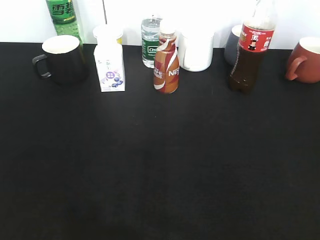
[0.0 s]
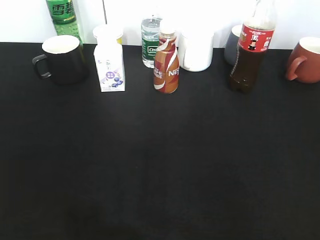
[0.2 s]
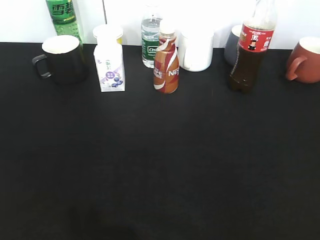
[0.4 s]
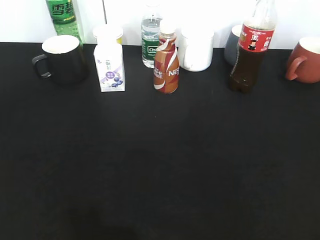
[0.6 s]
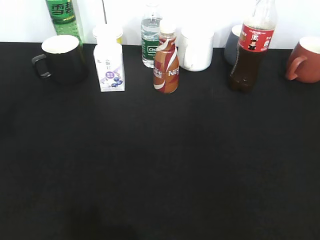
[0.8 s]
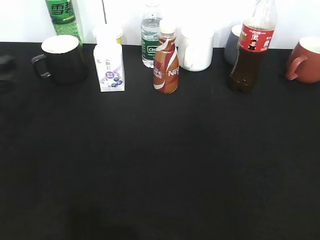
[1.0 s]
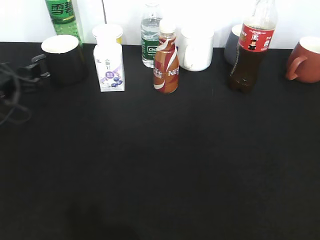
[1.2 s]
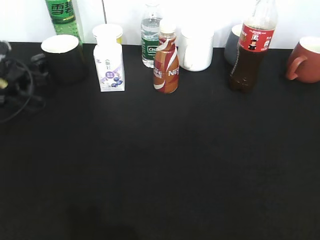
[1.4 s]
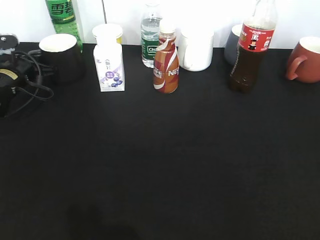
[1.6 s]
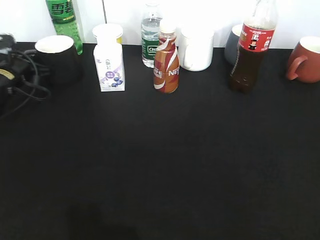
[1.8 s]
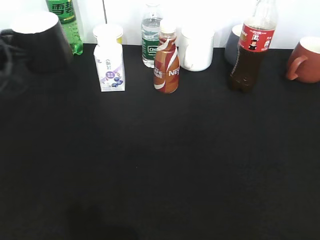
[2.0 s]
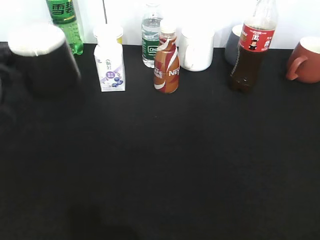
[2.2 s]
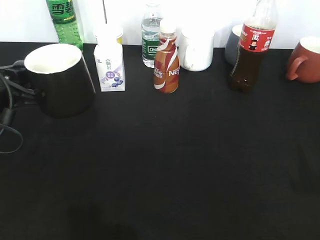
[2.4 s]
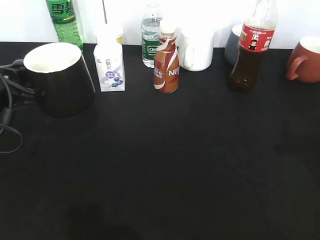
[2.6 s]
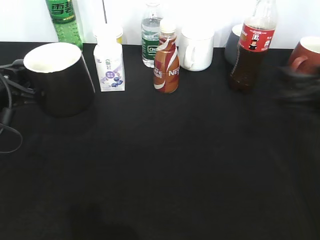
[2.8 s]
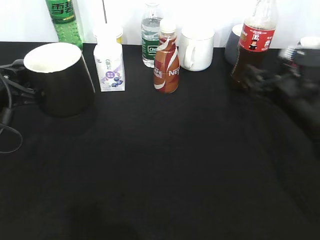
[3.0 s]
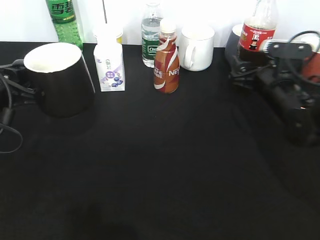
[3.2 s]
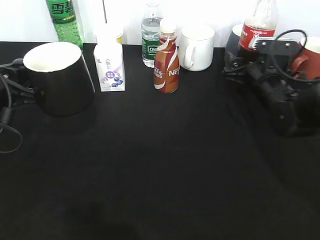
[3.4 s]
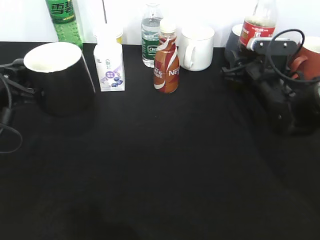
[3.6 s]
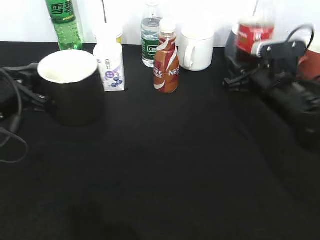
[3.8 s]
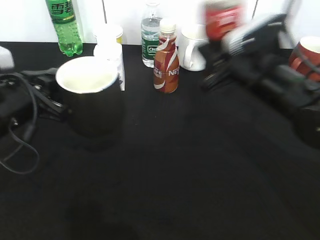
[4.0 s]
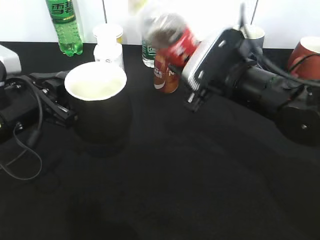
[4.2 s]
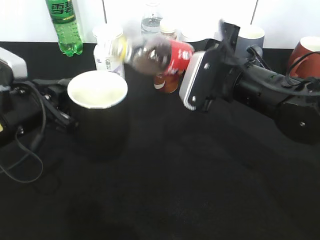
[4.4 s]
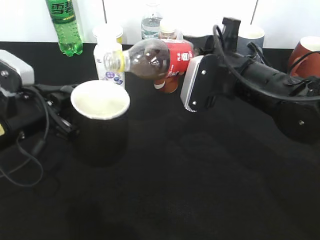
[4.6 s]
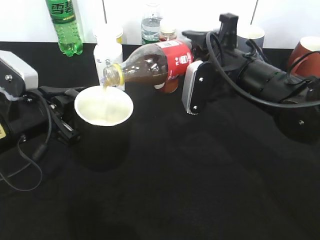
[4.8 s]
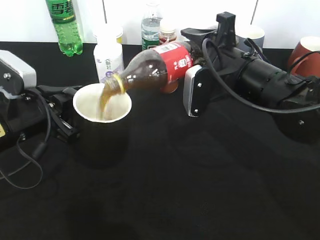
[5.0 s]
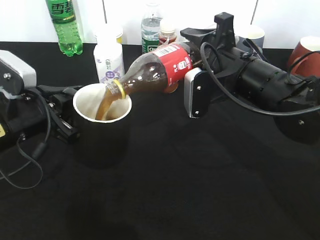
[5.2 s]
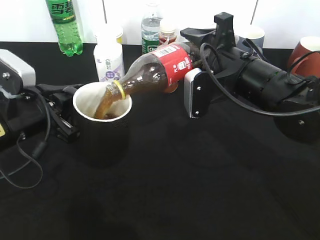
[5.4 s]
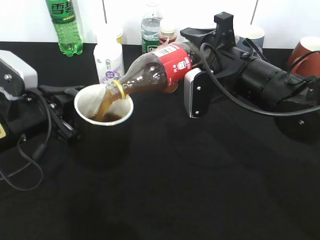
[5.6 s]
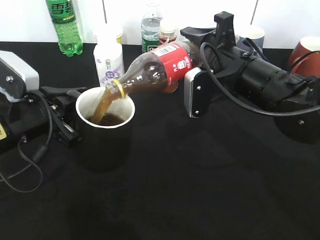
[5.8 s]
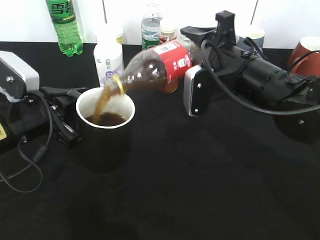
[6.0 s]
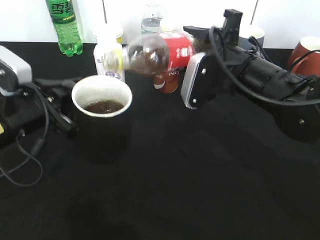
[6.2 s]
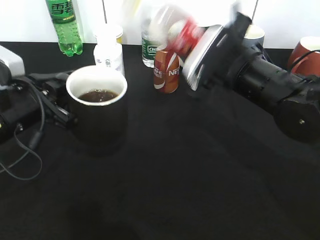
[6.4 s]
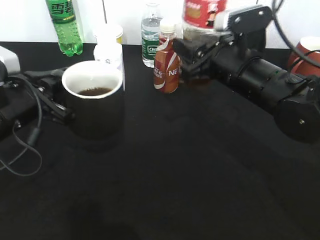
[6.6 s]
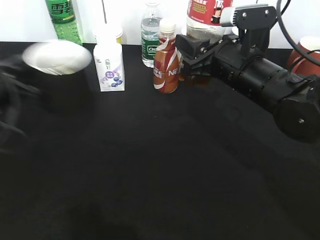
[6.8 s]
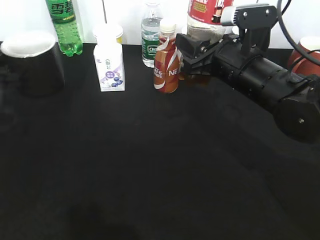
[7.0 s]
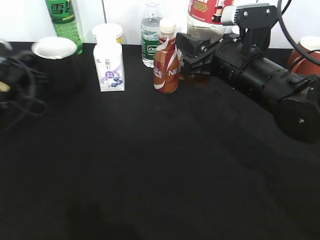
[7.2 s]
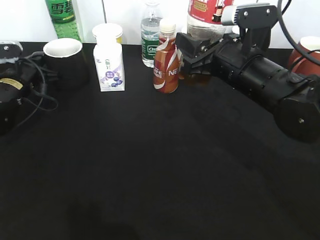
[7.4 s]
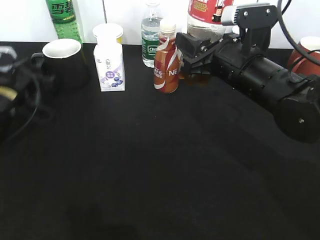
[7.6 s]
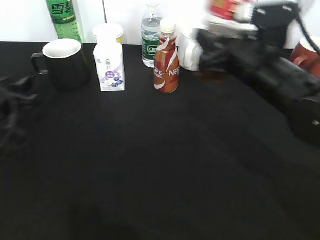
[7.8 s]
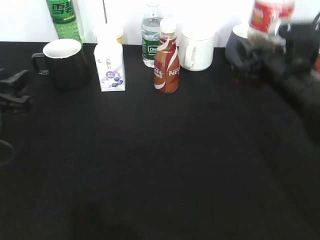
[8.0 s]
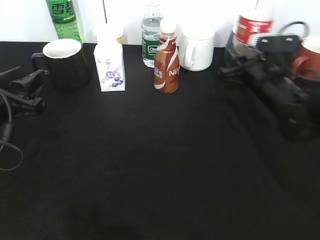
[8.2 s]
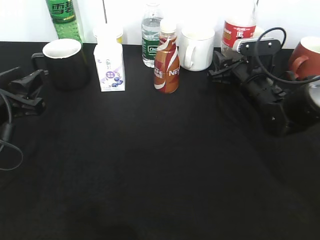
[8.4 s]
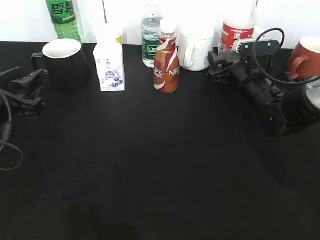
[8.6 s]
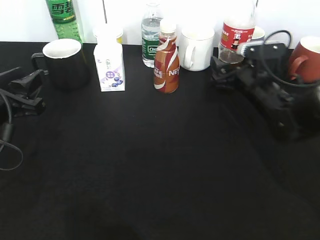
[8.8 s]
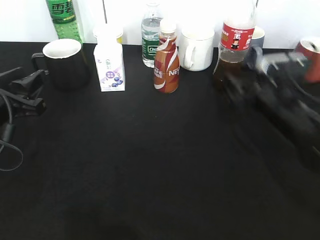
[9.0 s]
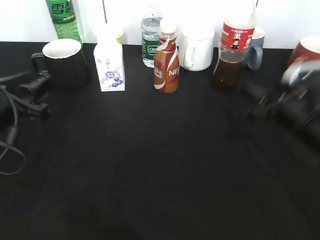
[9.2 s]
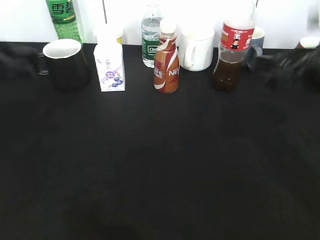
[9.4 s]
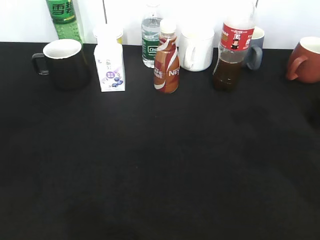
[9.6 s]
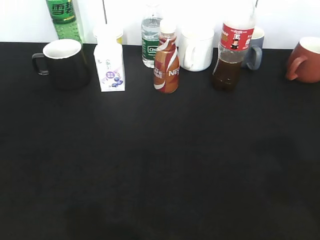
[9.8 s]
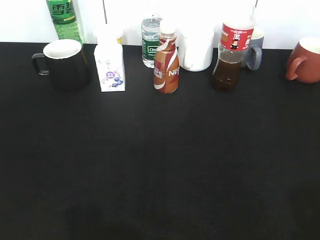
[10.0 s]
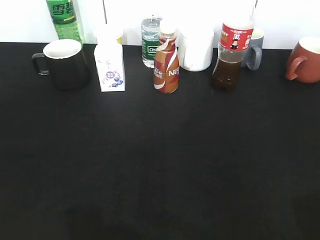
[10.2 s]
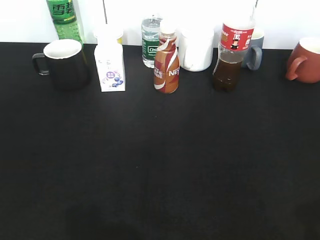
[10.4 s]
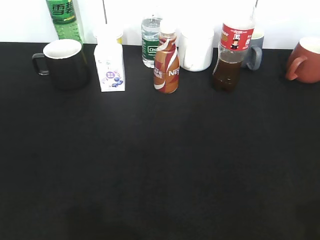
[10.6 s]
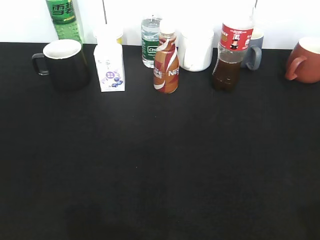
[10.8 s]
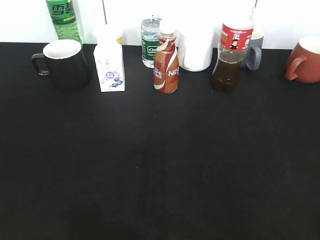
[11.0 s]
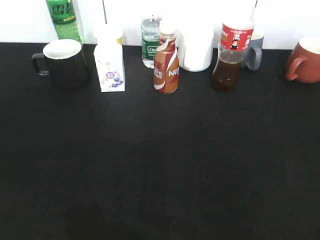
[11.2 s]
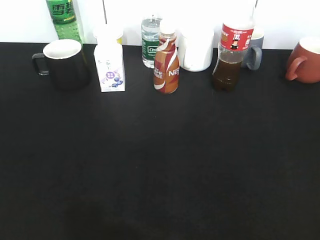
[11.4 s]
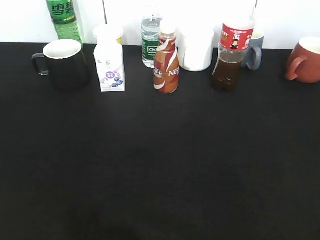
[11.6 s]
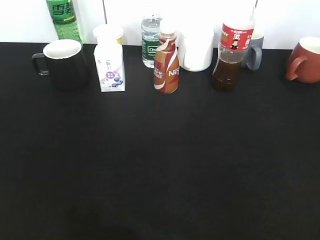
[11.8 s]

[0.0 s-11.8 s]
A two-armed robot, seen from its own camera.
Step, 0.0 to 1.6 s: Grasp the black cup with left gripper.
Step, 1.8 to 2.6 s: Lift the black cup with left gripper.
Step, 2.8 to 3.6 s: Grasp the bottle with cola with right gripper.
Step, 3.8 to 6.2 s: Pour the cola from bottle to cup with right gripper.
Step, 6.4 to 7.8 s: Place the black cup on the table with left gripper.
Step, 8.0 to 9.0 s: Place the cola bottle on the table with right gripper.
0.0 to 1.4 s: The left gripper shifts approximately 40 cm forward and downward.
1.4 to 3.0 s: The left gripper is displaced backward and upward by some 15 cm, and closes up. The right gripper heads forward and downward, covering roughly 35 cm, and opens.
3.0 to 4.4 s: The left gripper changes place by about 5 cm; the right gripper travels to the left by some 10 cm, and closes its fingers.
6.0 to 7.4 s: The left gripper shifts roughly 20 cm forward and to the left.
7.4 to 8.8 s: The right gripper moves downward, to the right and forward, some 15 cm, and opens its fingers. Meanwhile the left gripper shifts roughly 15 cm backward, and opens up.
8.8 to 10.4 s: The right gripper travels backward and upward by roughly 40 cm, while the left gripper heads backward and upward, covering roughly 25 cm.

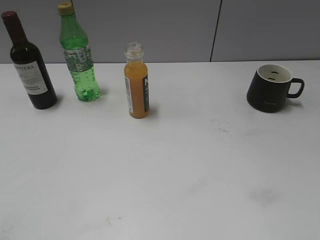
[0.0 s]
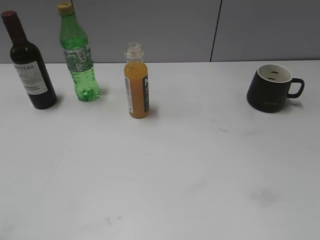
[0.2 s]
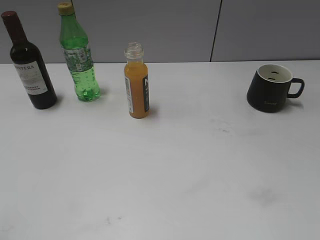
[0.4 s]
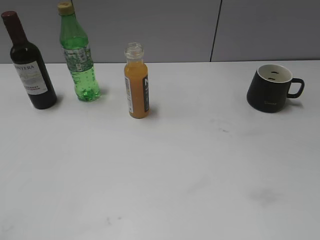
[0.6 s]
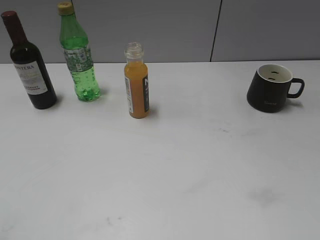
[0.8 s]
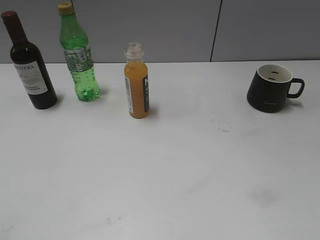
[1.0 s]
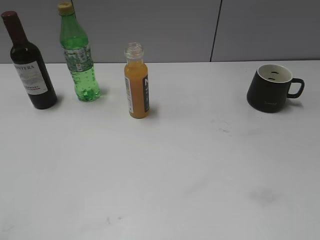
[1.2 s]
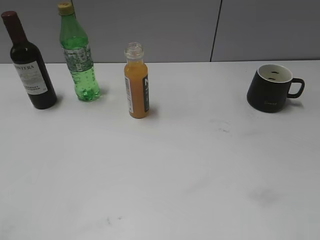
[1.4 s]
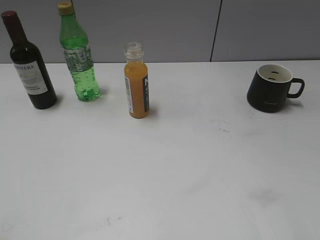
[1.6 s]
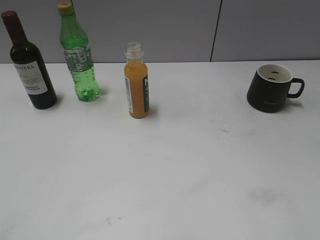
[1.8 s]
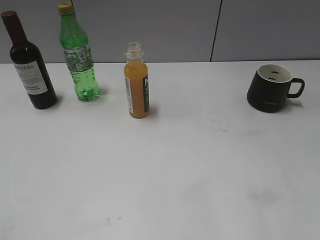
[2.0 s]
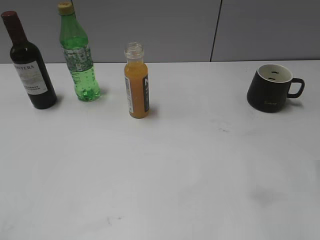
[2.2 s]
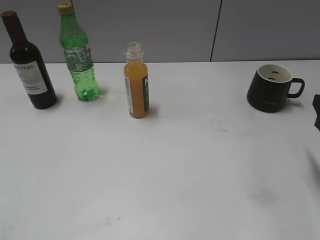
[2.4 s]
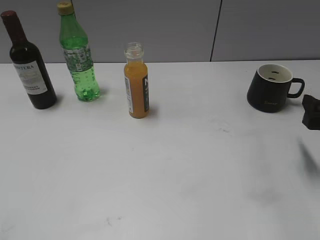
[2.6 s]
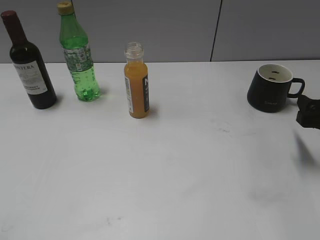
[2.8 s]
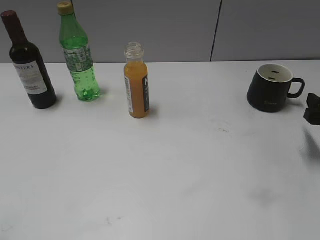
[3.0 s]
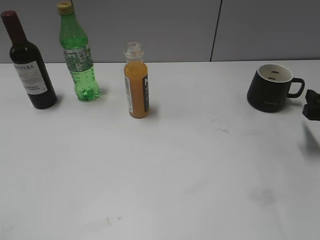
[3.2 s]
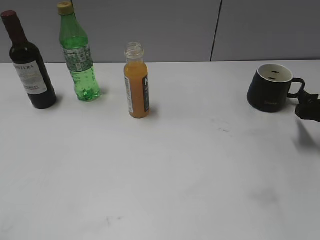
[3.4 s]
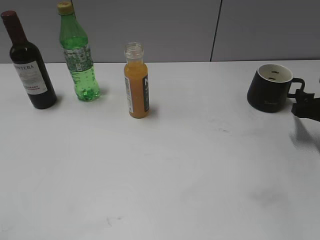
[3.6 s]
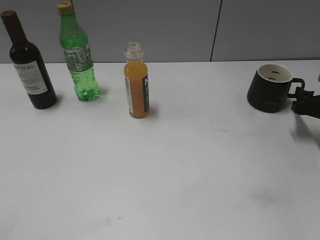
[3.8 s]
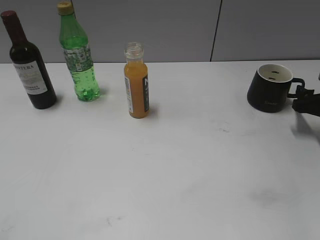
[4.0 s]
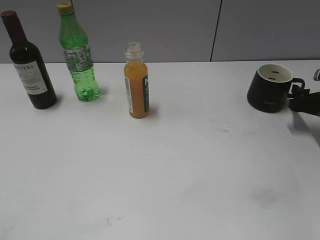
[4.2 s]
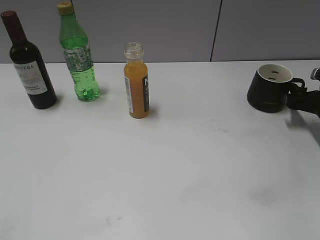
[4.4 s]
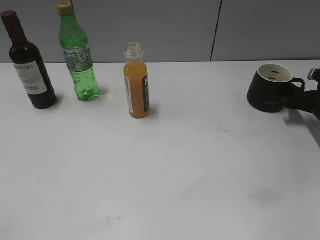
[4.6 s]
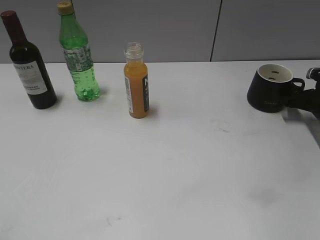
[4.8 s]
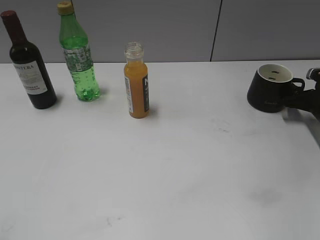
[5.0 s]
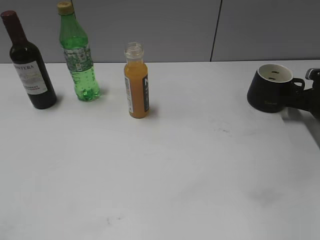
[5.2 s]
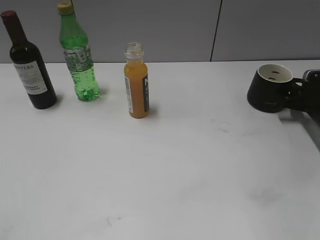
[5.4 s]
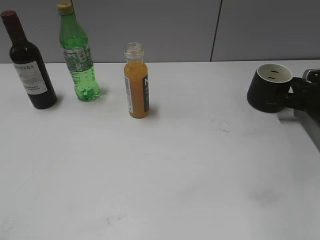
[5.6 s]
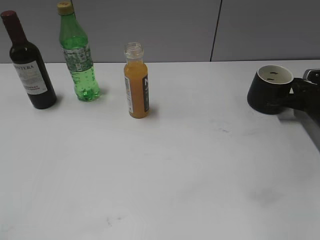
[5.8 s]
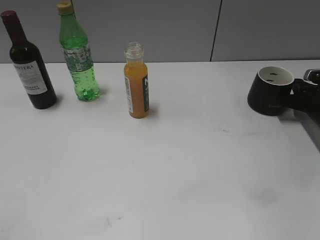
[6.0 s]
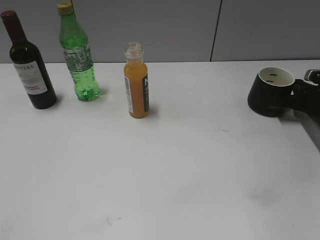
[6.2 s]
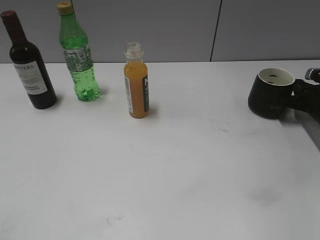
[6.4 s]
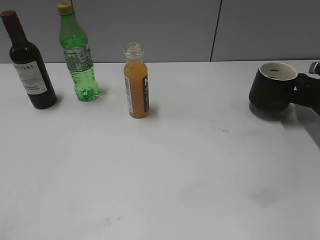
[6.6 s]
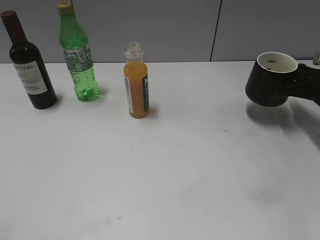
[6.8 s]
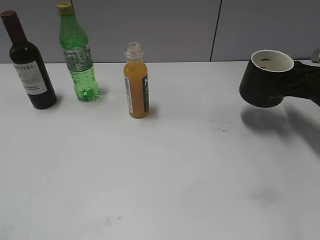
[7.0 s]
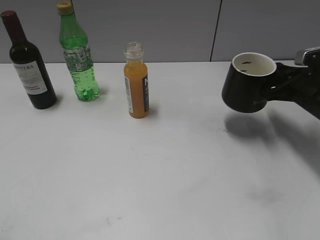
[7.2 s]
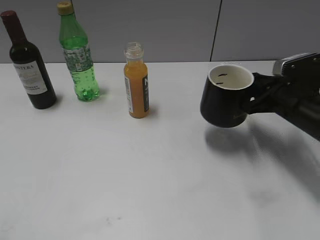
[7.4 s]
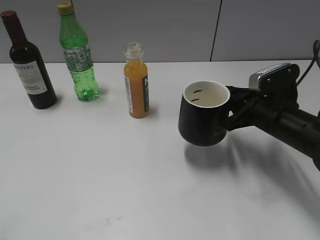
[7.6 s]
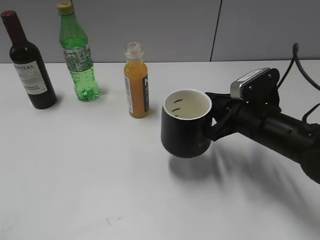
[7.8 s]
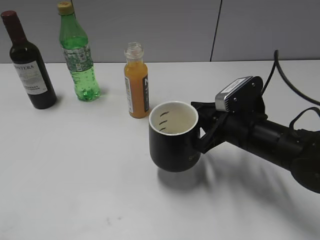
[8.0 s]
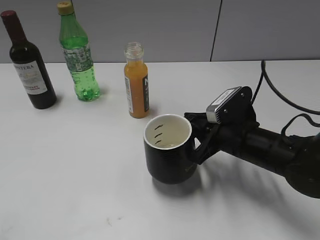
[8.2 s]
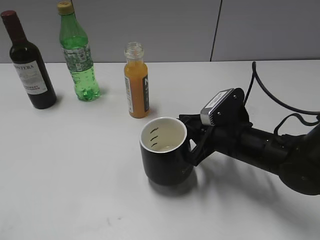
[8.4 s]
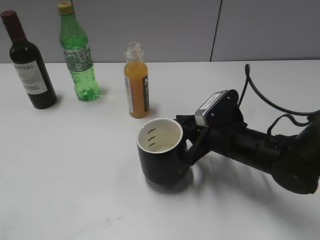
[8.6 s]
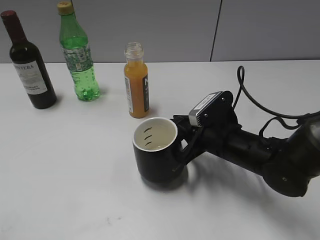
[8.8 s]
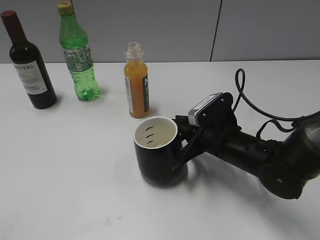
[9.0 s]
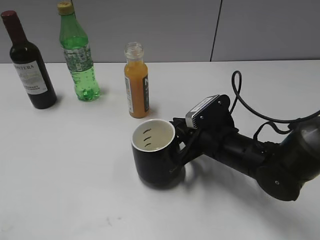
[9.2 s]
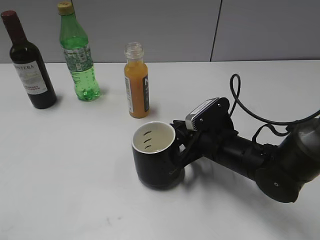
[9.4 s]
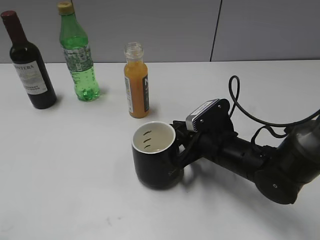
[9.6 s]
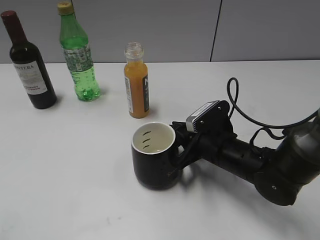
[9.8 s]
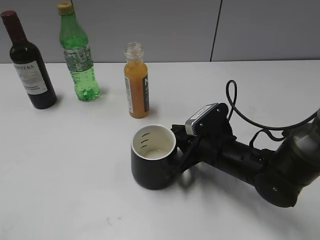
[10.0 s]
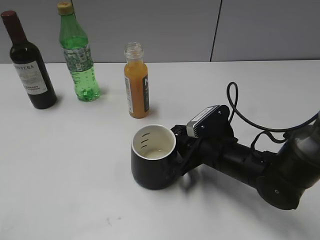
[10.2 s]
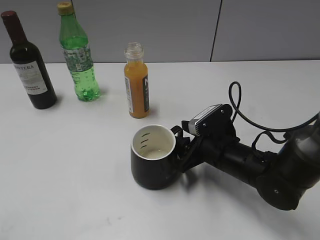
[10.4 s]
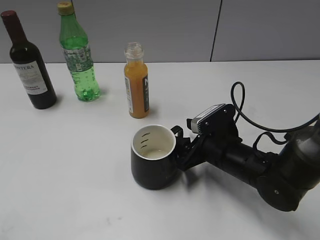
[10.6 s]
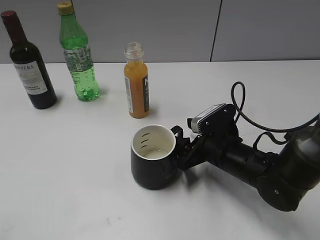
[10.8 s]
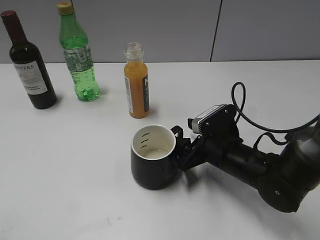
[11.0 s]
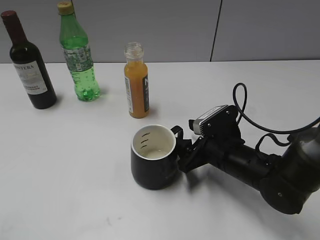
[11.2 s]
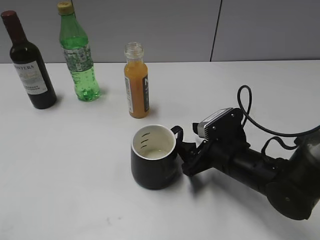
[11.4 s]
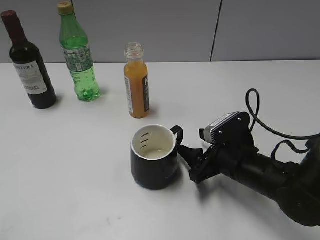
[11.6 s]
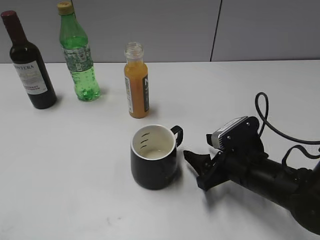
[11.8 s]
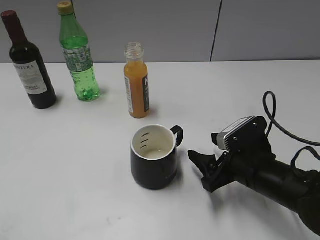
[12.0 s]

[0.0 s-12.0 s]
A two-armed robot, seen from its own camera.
Step, 2.4 to 5.8 s: Grasp the black cup with right gripper.
Step, 6.0 to 10.8 s: Place the black cup in the center of view with right gripper.
1.6 to 3.0 s: The right gripper moves forward and downward, some 25 cm.
3.0 to 4.4 s: The right gripper moves forward and downward, roughly 10 cm.
4.4 to 6.0 s: The right gripper closes up.
6.0 to 7.6 s: The right gripper moves to the left, backward and upward, approximately 20 cm.
7.6 to 9.0 s: The right gripper moves to the left, about 10 cm.
9.0 to 10.4 s: The right gripper opens up.
10.4 to 12.0 s: The right gripper changes place by some 5 cm.
